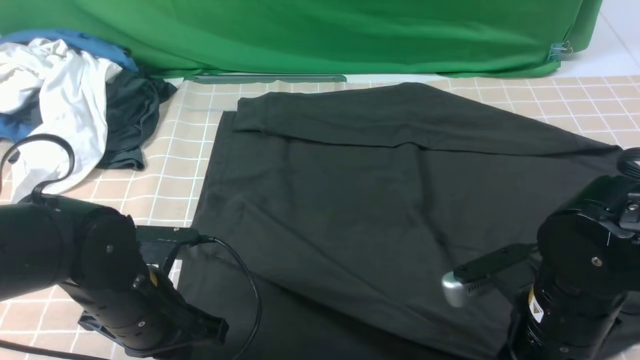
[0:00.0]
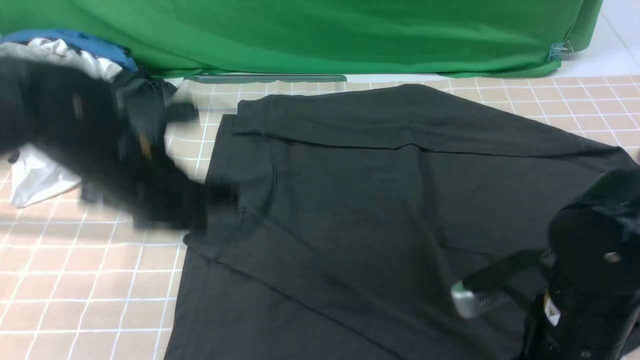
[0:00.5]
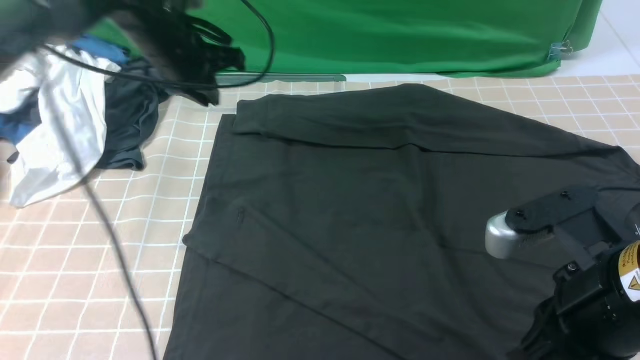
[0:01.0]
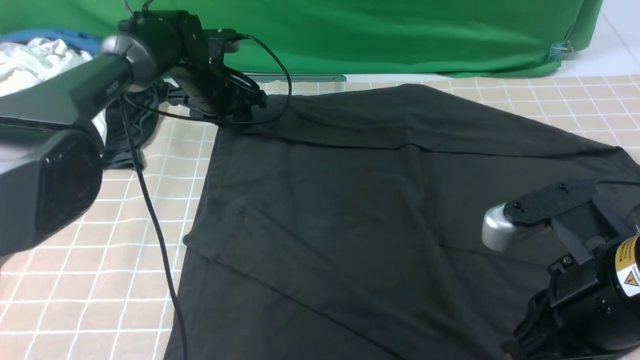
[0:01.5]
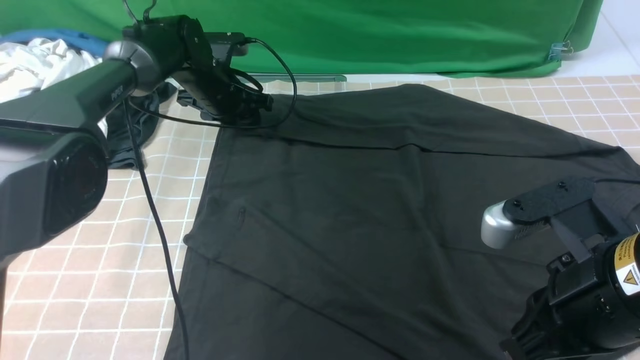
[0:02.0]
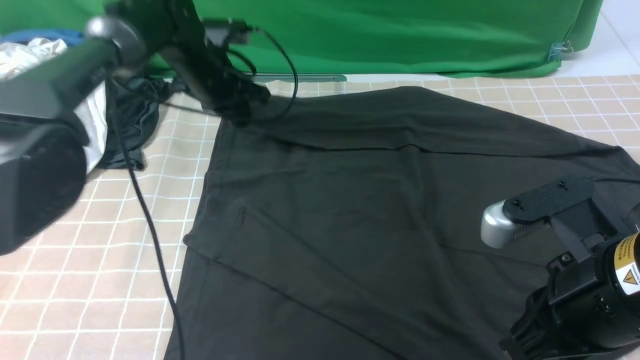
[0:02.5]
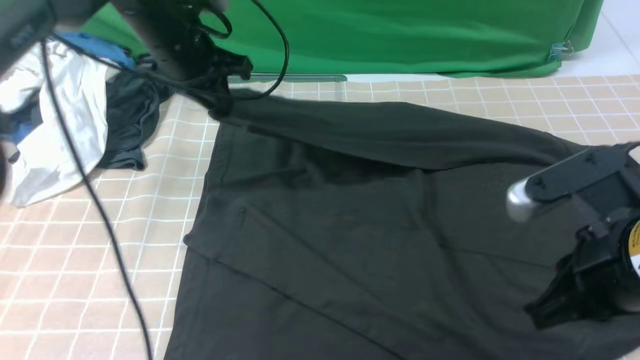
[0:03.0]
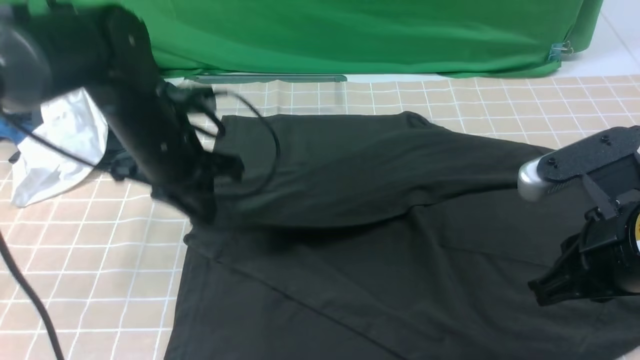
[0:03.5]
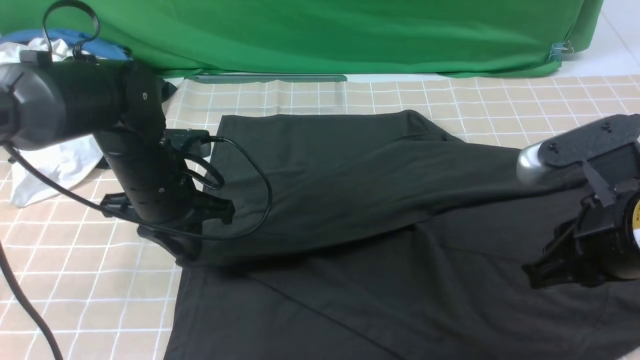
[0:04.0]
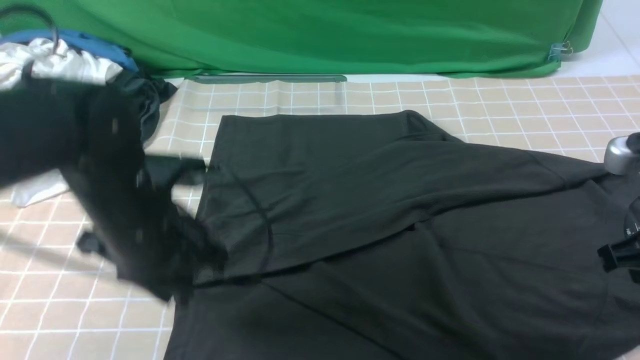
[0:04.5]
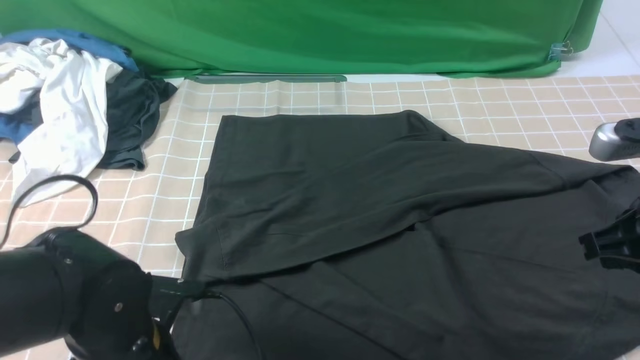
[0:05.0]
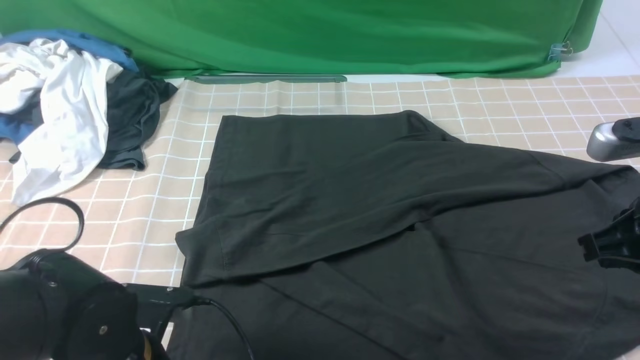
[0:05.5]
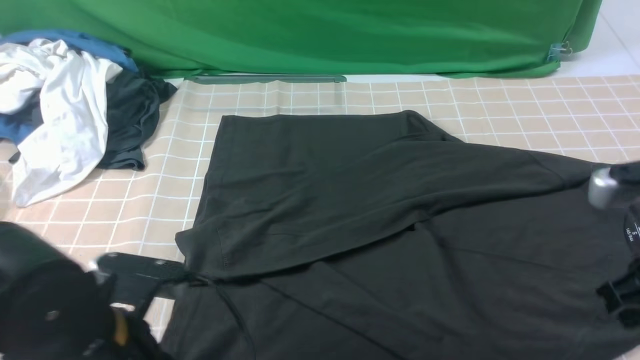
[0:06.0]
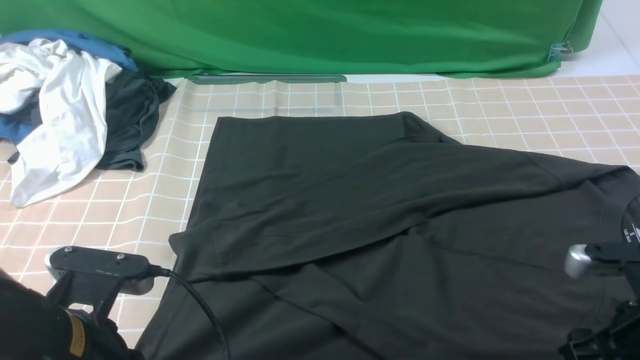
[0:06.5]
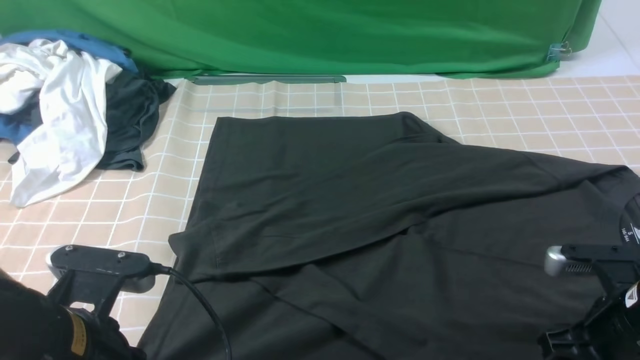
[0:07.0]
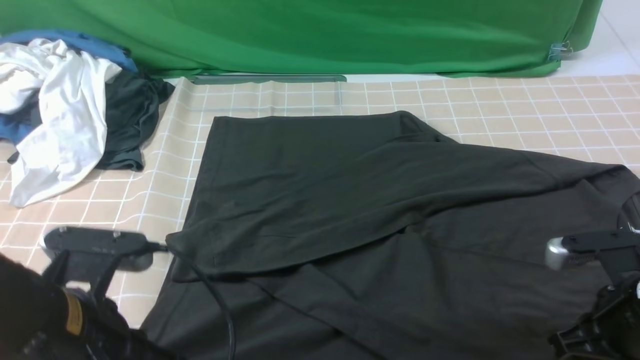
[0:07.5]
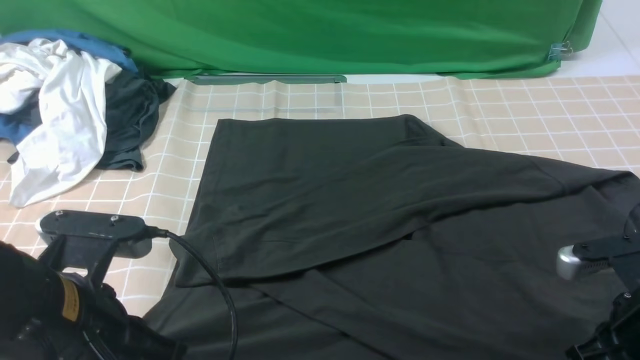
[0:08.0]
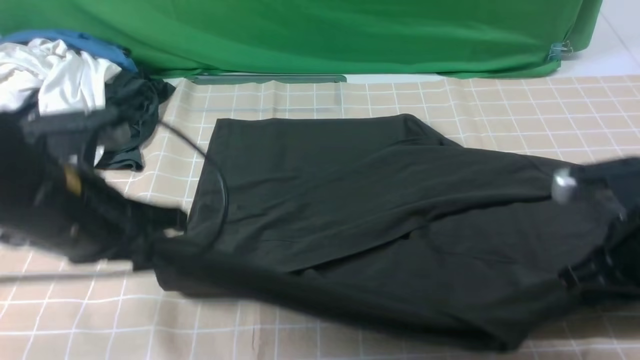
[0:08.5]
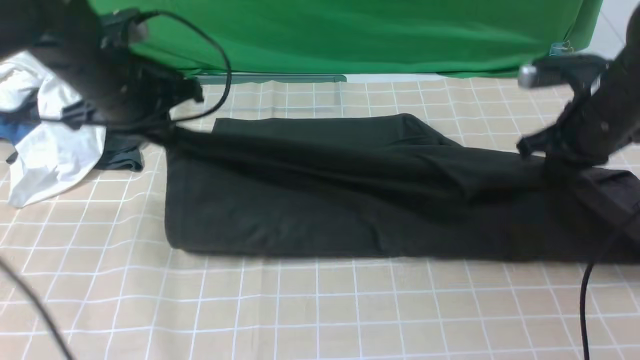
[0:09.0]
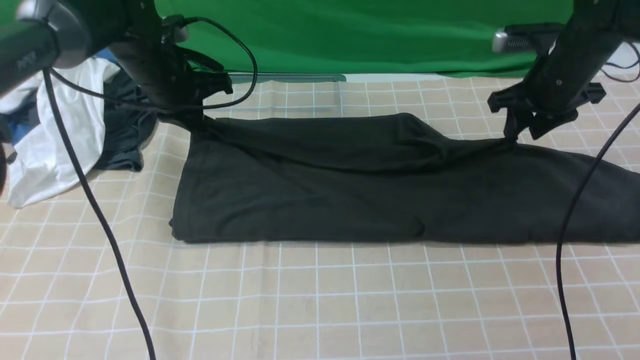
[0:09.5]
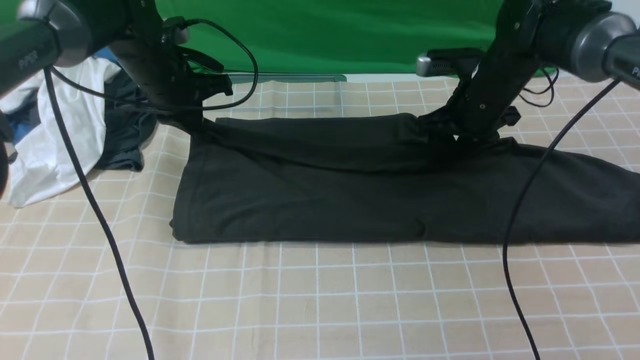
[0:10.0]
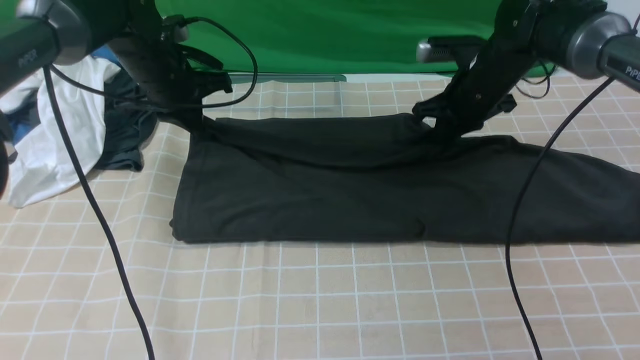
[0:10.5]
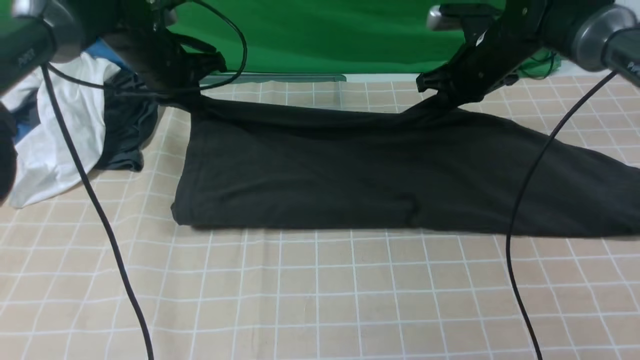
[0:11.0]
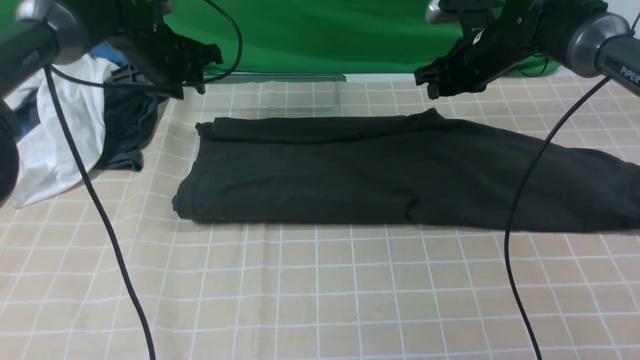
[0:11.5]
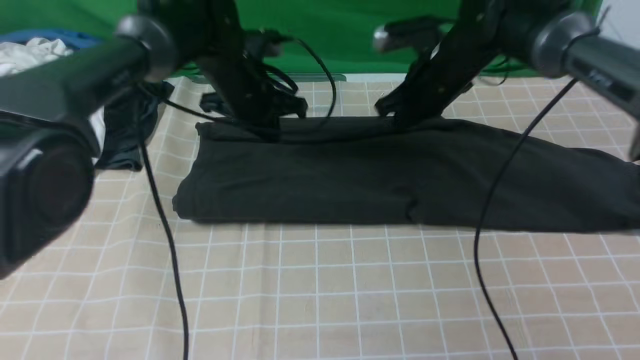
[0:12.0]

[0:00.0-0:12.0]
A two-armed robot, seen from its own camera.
Step, 0:00.0 to 0:02.0: use the left arm to clamp the cuff farthest from it.
Step, 0:02.5 to 0:04.0: use the left arm to drag and drop the cuff onto the cuff closest to the left arm.
Step, 0:04.5 to 0:07.0: use both arms simultaneously to clamp the lower edge of the clothing fabric.
0:00.0 to 0:02.0: The left gripper shifts about 30 cm forward, and opens; the right gripper is displaced upward by some 10 cm.
0:02.0 to 0:04.0: The left gripper is displaced backward by about 20 cm; the right gripper ends up approximately 5 cm from where it was.
0:04.0 to 0:06.0: The left gripper travels backward by about 20 cm, and opens, then closes once more, while the right gripper changes place by some 5 cm.
0:06.0 to 0:08.0: The left gripper is displaced upward by about 5 cm. Meanwhile the right gripper shifts some 5 cm downward, and opens, then closes once more.
0:08.0 to 0:10.0: Both grippers move forward, some 30 cm. The right gripper opens up.
0:10.0 to 0:12.0: The right gripper moves roughly 5 cm, and closes. The left gripper is displaced to the right by about 10 cm, and opens and closes again.

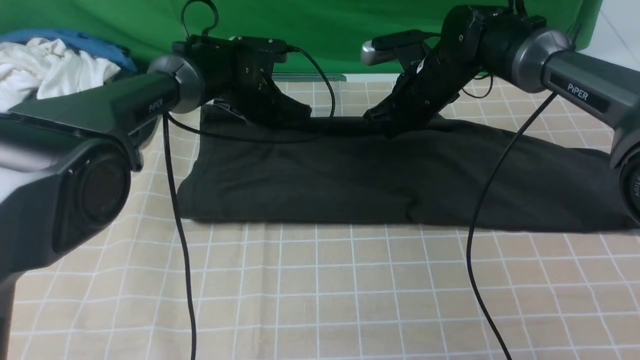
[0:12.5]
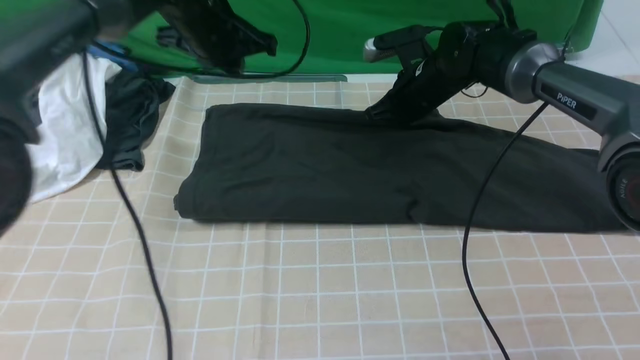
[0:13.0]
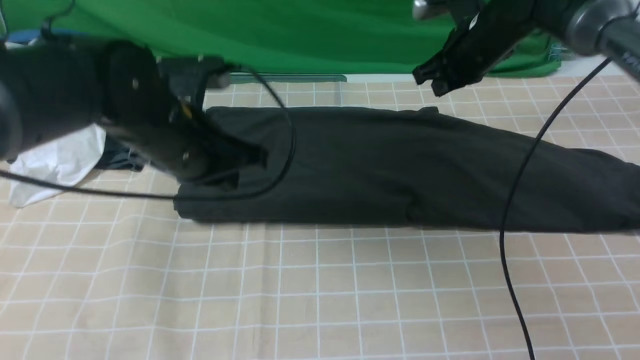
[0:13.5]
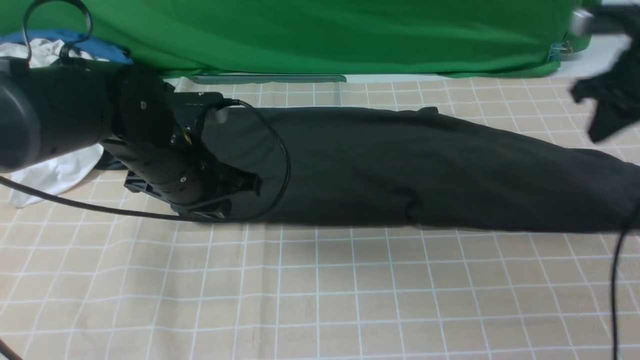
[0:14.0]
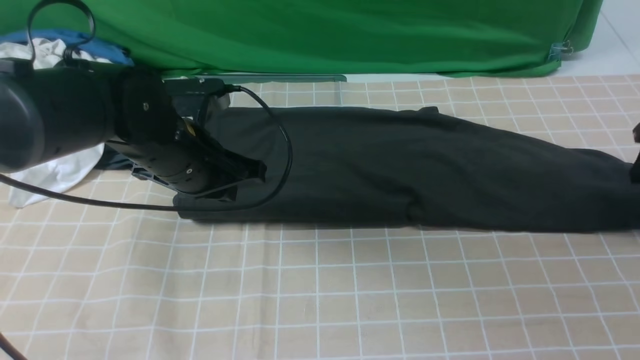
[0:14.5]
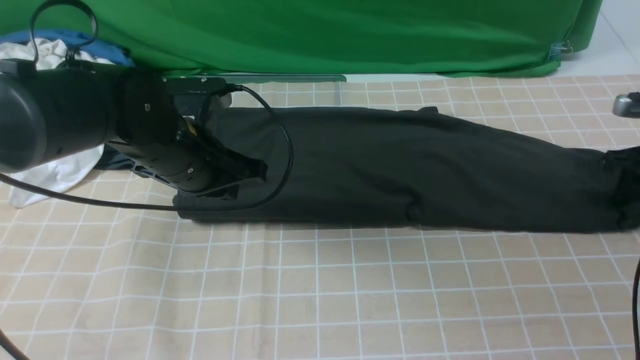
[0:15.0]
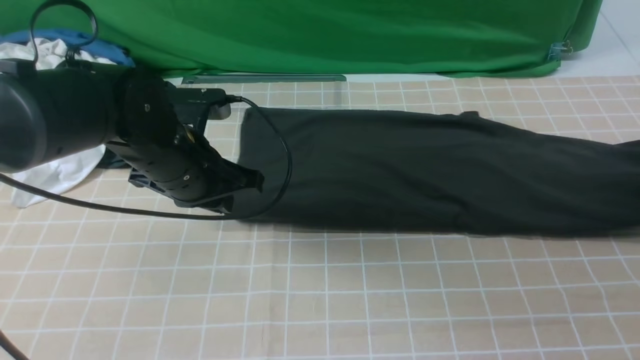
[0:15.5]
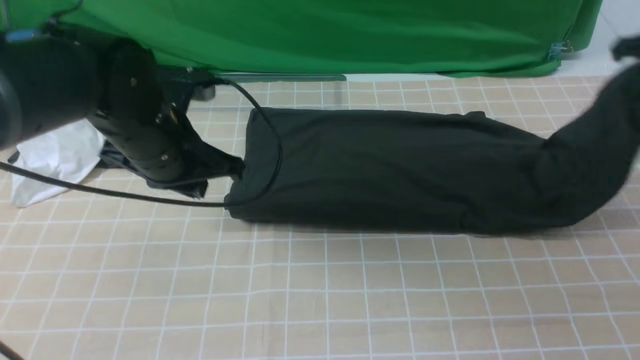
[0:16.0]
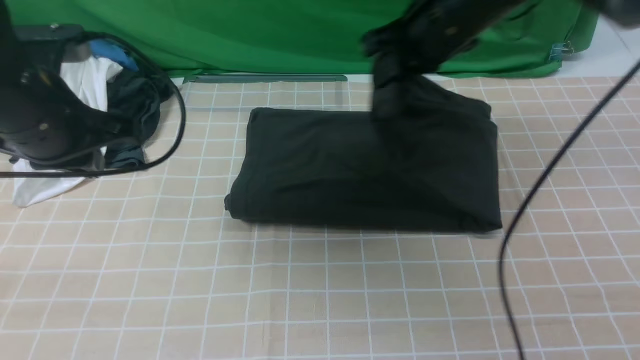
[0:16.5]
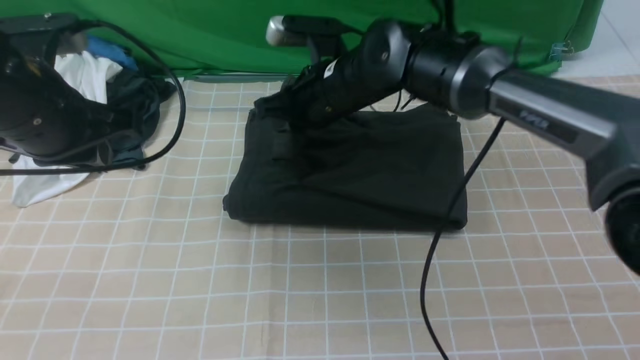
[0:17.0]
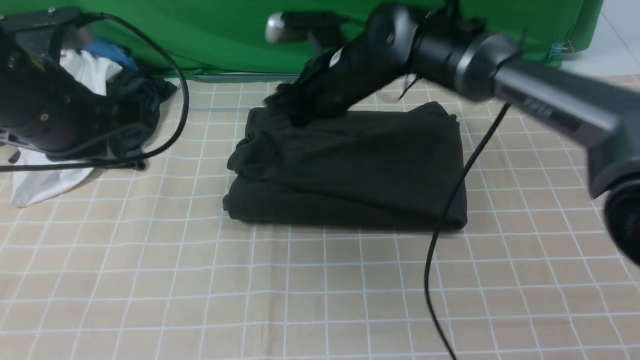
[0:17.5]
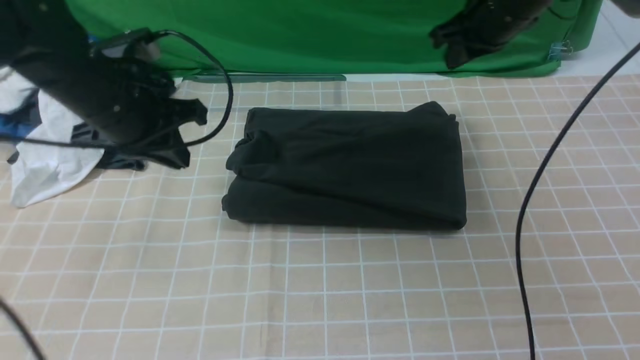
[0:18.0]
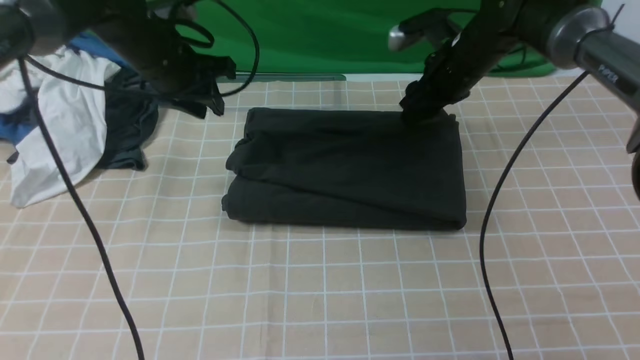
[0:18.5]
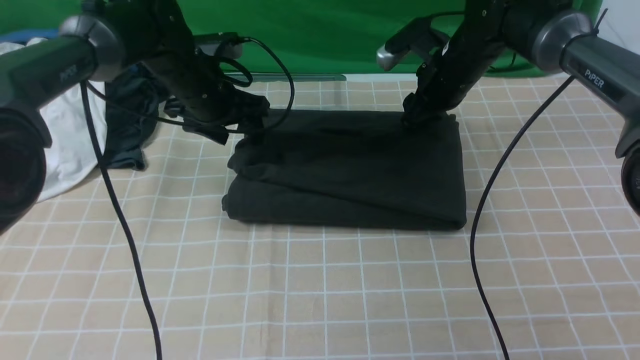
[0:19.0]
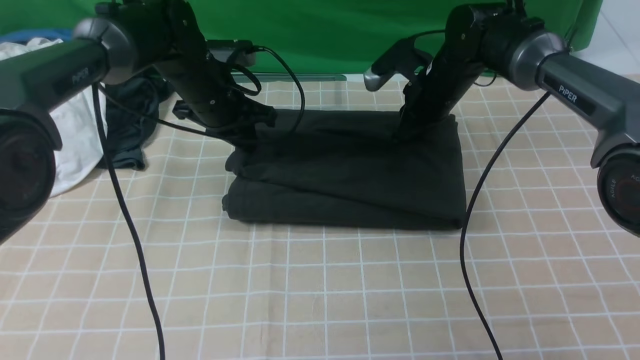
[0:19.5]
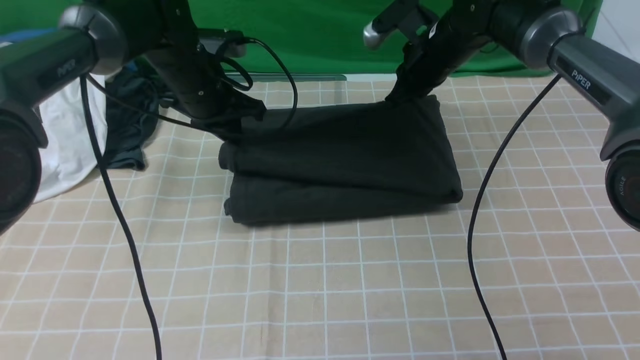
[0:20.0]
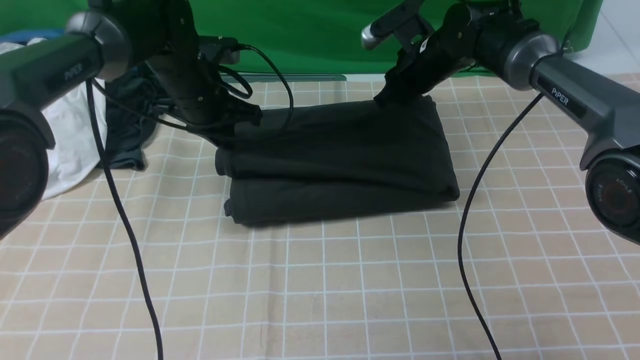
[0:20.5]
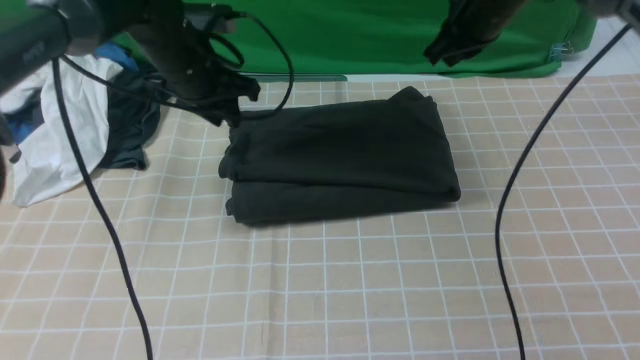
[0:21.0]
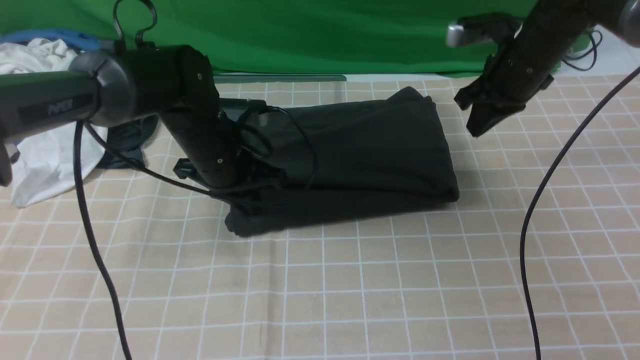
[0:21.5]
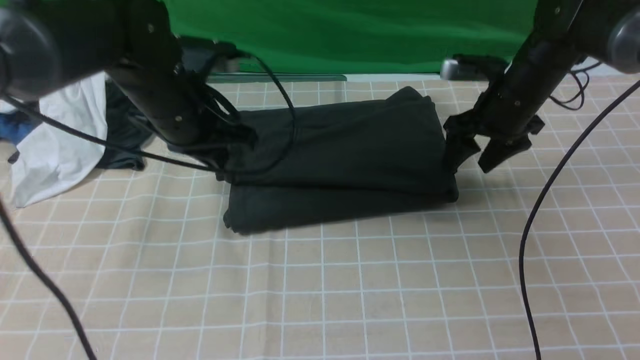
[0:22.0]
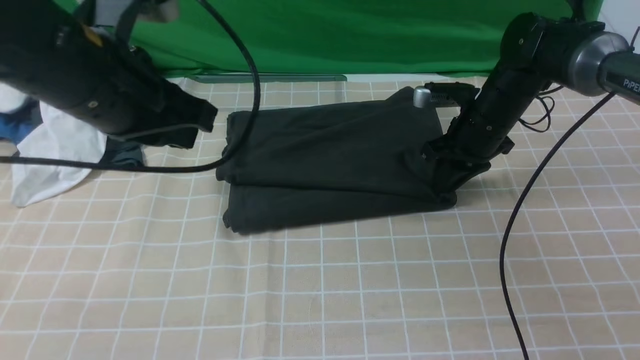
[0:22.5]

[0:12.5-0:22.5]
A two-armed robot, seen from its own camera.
Step, 0:13.5 to 0:15.0: use the right arm to clamp the right edge of the fabric.
Step, 0:15.5 to 0:17.5: use the right arm to drag the right edge of the fabric to the left and folds it over the left edge.
0:12.5 to 0:14.5: The right gripper travels to the right by approximately 30 cm, and opens up; the left gripper heads backward, covering some 20 cm.
0:14.5 to 0:16.5: The right gripper goes approximately 30 cm to the left, and closes. The left gripper goes roughly 10 cm to the left and upward.
0:16.5 to 0:18.5: The left gripper shifts approximately 15 cm forward, and opens up, while the right gripper moves downward and forward, roughly 10 cm, goes to the left and returns, roughly 10 cm each way, and opens.
0:18.5 to 0:20.5: The left gripper closes its fingers. Meanwhile the right gripper closes, then reopens.
0:20.5 to 0:22.5: The right gripper shifts some 10 cm backward and to the right, travels upward and back again, some 10 cm each way, and closes, then reopens; the left gripper is displaced backward and upward by roughly 25 cm.
